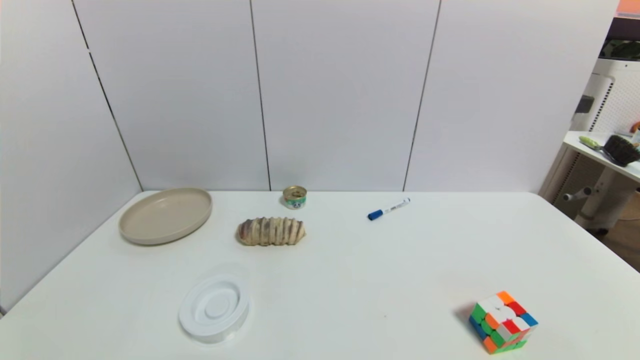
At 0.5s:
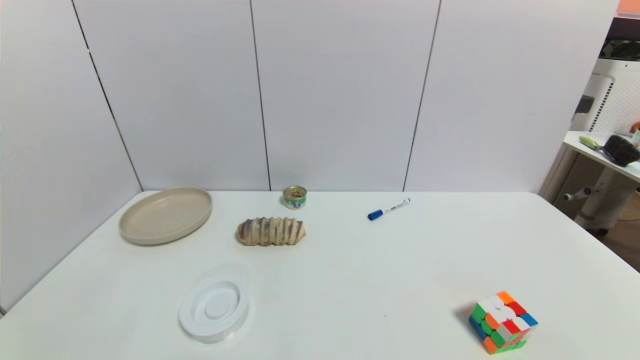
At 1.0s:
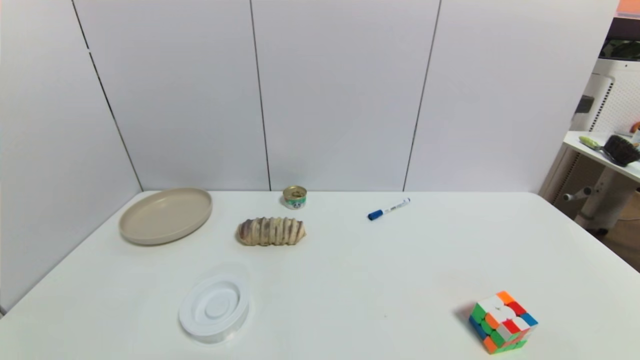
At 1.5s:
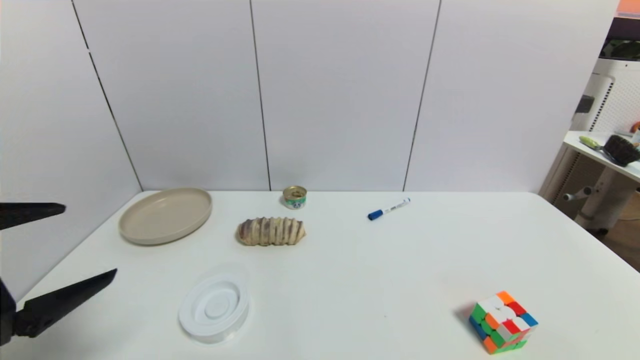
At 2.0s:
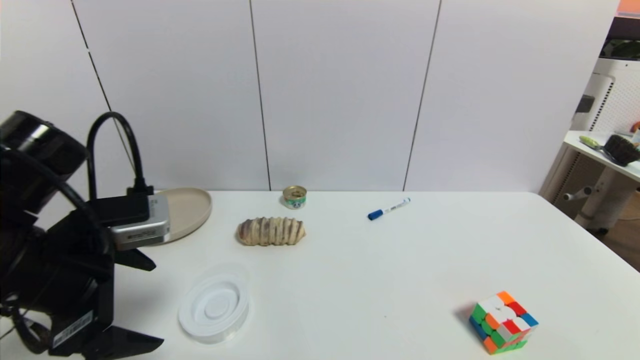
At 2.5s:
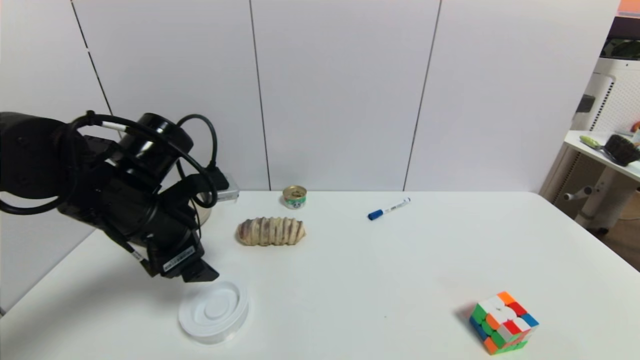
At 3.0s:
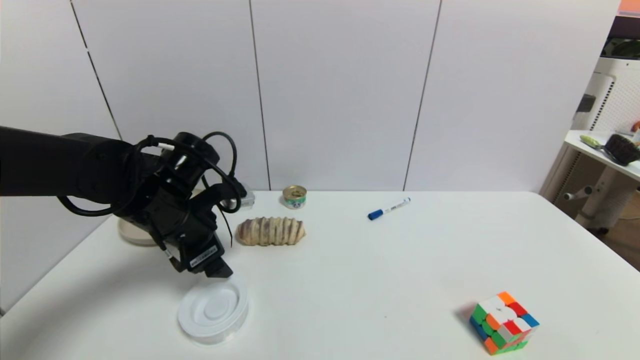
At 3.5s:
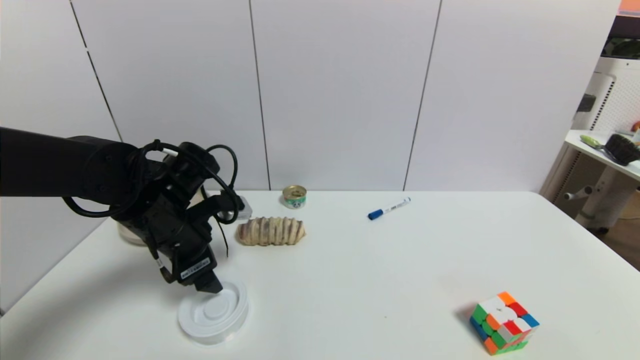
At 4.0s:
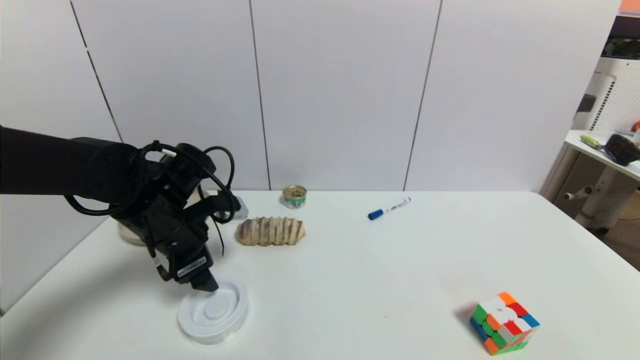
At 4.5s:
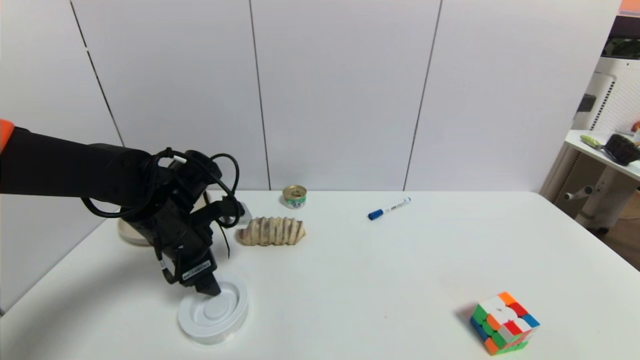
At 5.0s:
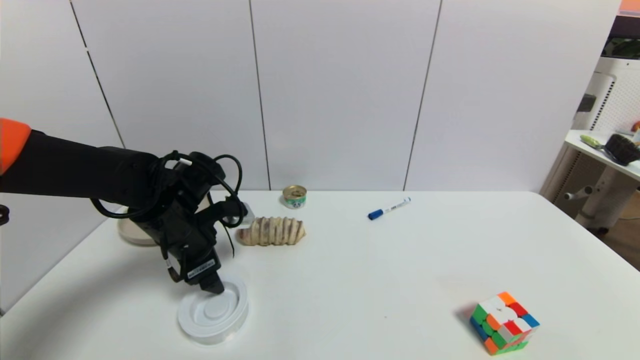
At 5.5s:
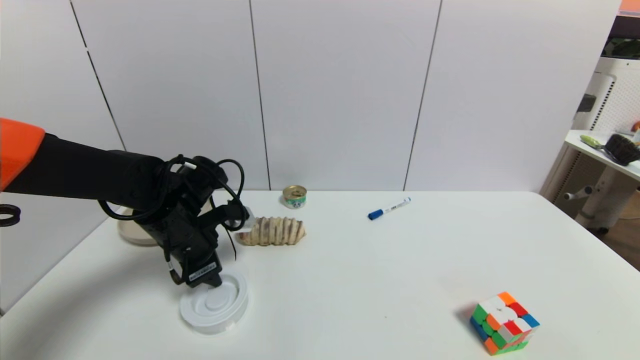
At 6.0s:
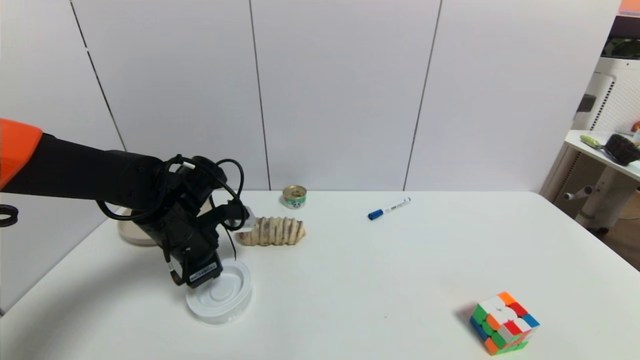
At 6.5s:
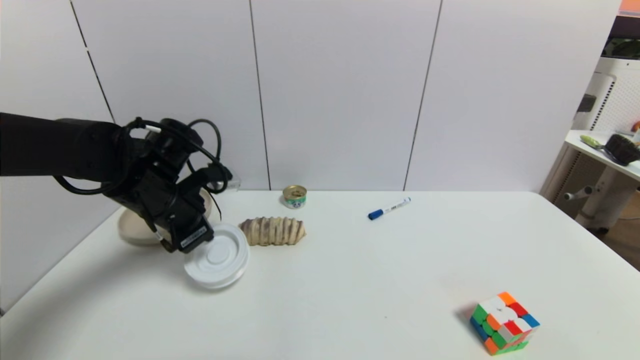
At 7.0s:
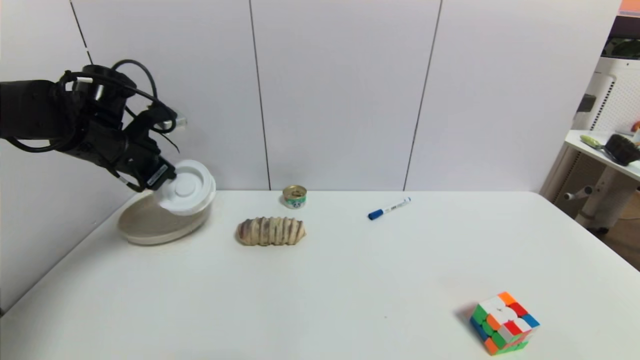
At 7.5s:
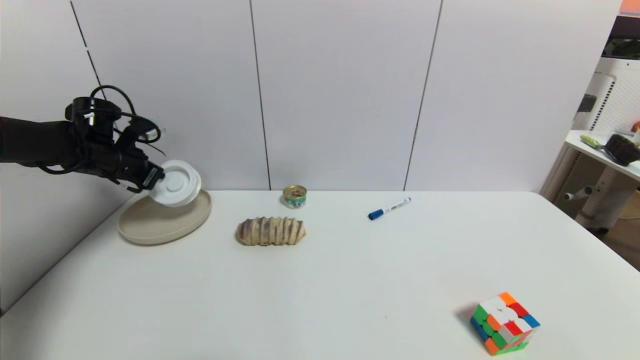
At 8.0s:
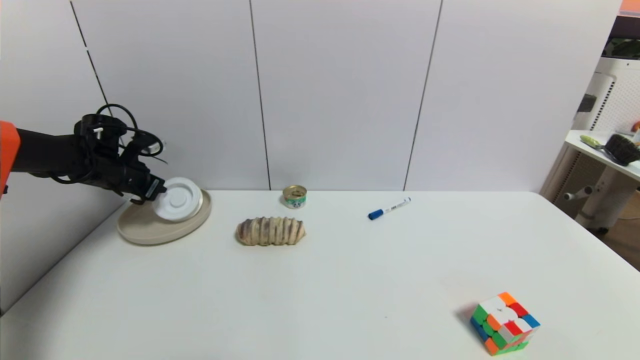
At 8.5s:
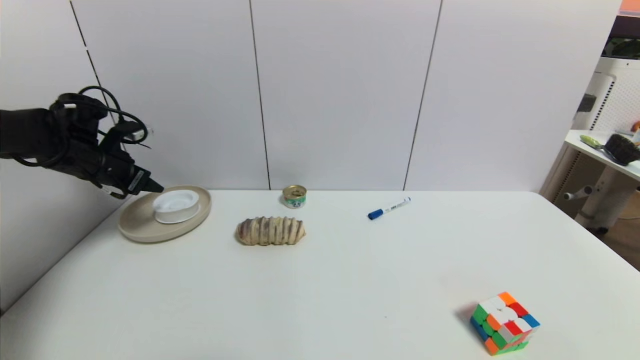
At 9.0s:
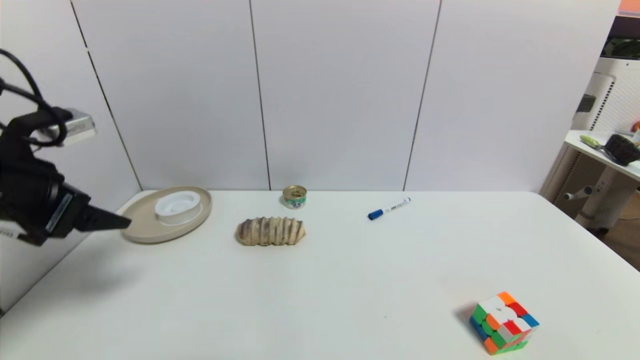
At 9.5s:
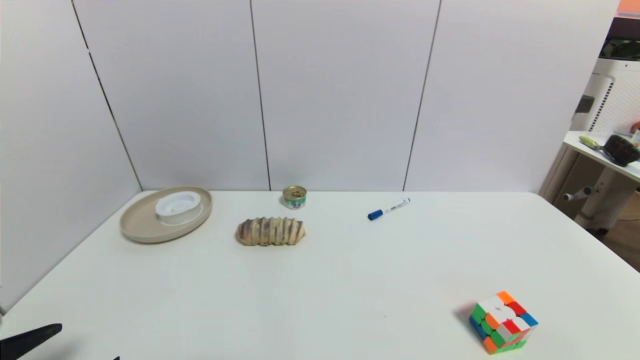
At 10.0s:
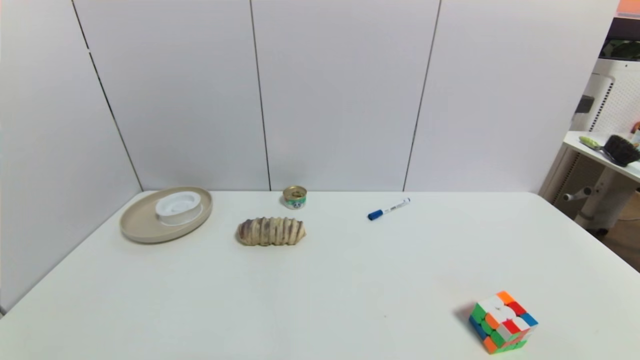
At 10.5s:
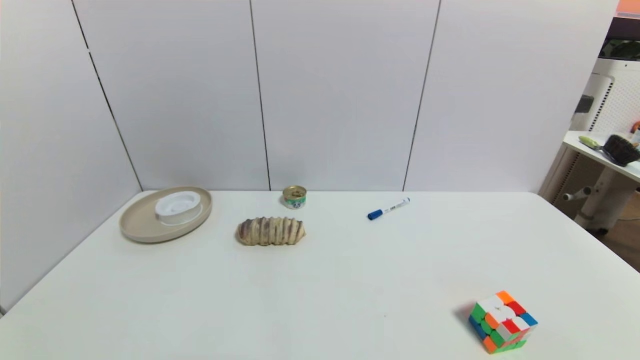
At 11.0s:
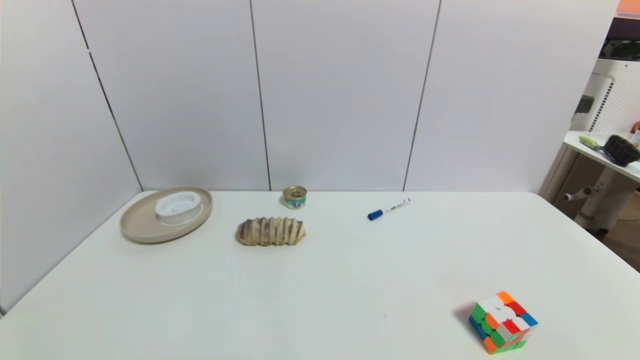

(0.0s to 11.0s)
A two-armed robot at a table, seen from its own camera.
Task of the whole recording: use a gripper to pick the target object and place on the brown plate.
Step, 0.0s - 6.0s: Grasp the tape with the left gripper.
Step, 6.5s - 8.5s: Place the tape on the brown plate with the left gripper.
0.0s - 2.0s: The left gripper goes approximately 25 cm forward and upward.
2.0s - 3.5s: The left gripper heads forward and downward, covering about 15 cm.
3.5s - 5.5s: The left gripper closes.
5.5s - 7.5s: The left gripper is displaced to the left and forward by about 20 cm, and closes its fingers.
7.5s - 9.0s: The left gripper goes some 25 cm backward, and opens up.
9.0s - 11.0s: The left gripper shifts some 30 cm backward and downward.
